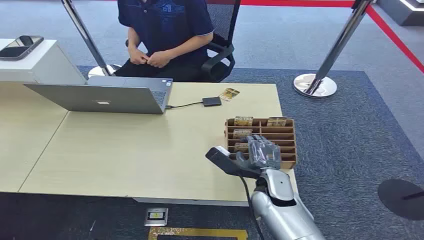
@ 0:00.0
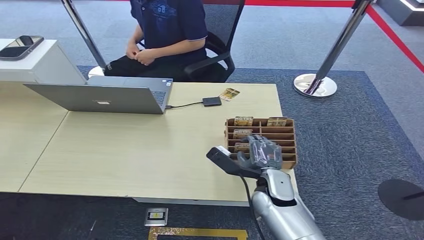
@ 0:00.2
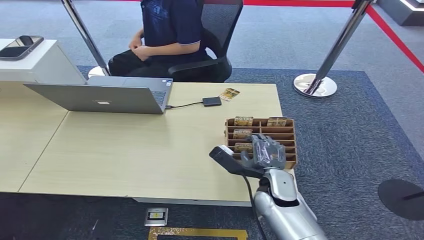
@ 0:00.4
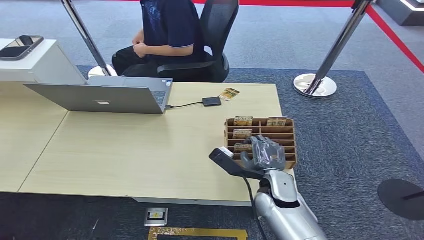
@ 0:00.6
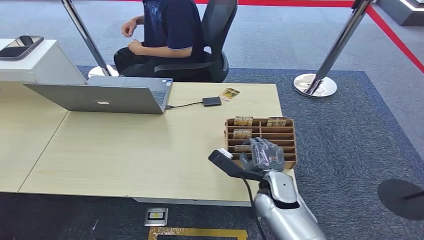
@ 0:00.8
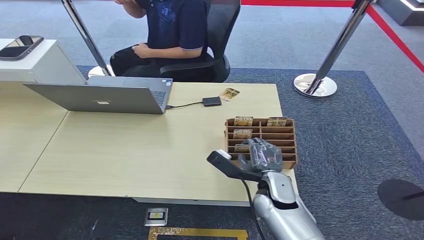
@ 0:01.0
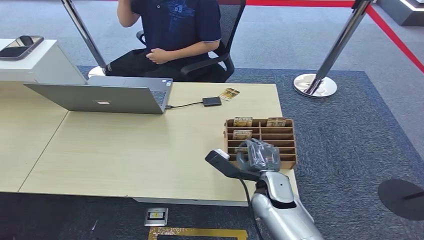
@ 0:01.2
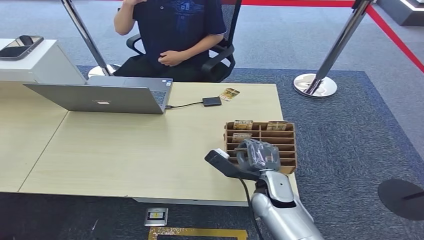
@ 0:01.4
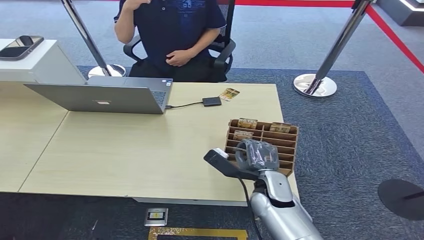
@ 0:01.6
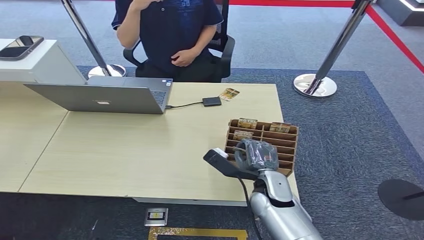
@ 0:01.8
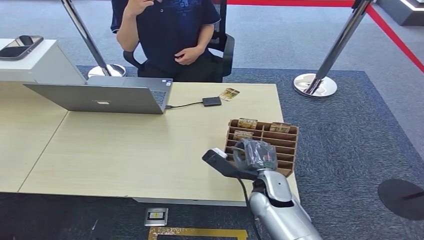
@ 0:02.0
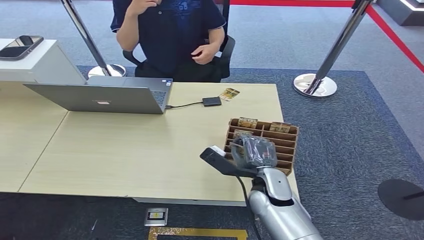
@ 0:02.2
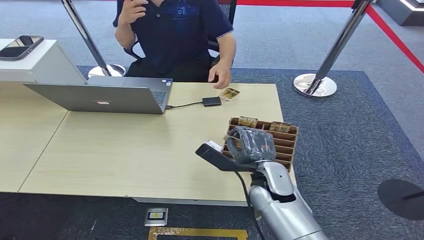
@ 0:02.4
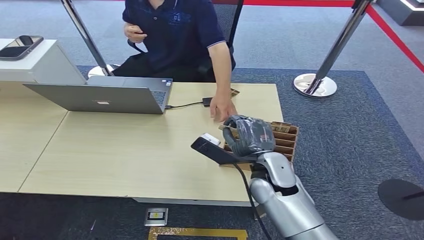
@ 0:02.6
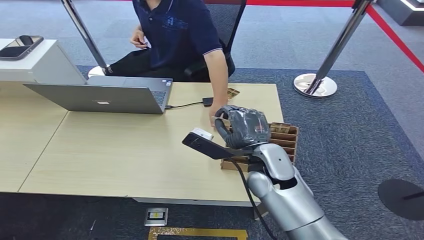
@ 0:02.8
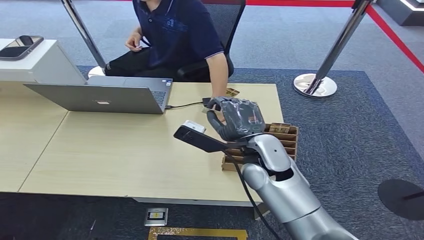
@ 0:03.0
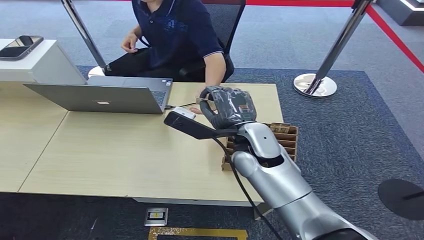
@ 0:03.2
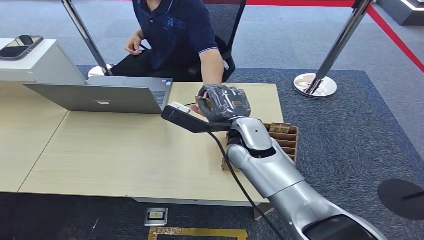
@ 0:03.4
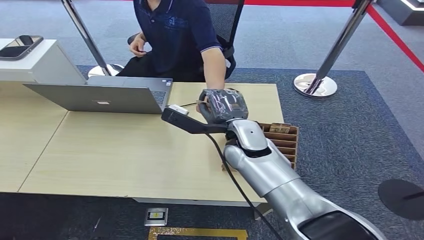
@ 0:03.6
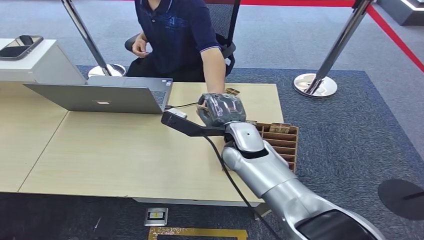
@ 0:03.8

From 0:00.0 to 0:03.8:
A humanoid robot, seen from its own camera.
Step, from 0:00.0 to 0:02.4: Pick up the room card from the card holder.
Step, from 0:02.6 to 0:03.8: Hand the room card to the target.
From 0:01.2 to 0:02.6: The right hand heads upward, covering some 5 cm.
From 0:02.6 to 0:03.8: The right hand heads forward, covering some 5 cm.
